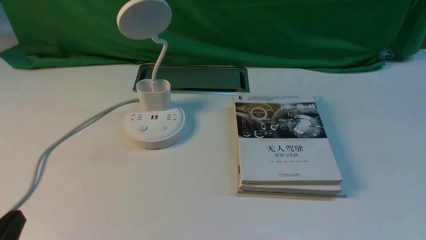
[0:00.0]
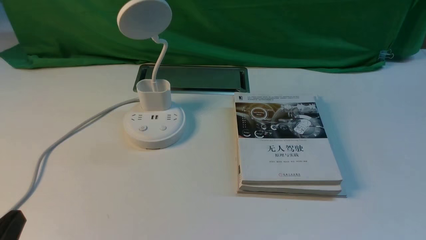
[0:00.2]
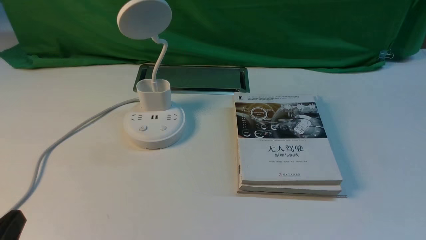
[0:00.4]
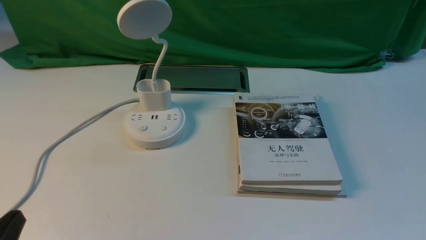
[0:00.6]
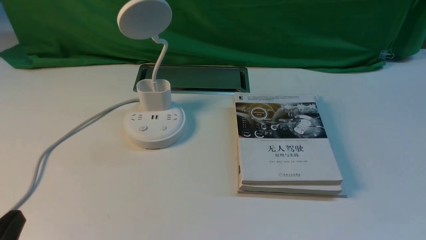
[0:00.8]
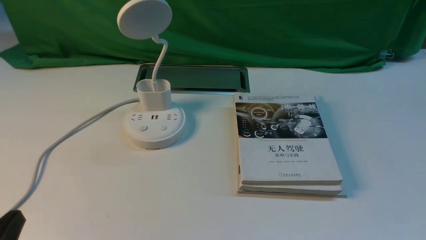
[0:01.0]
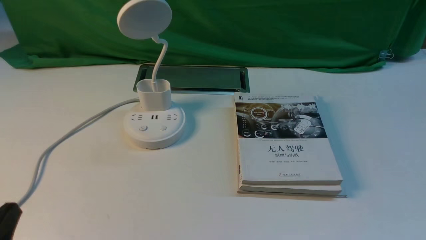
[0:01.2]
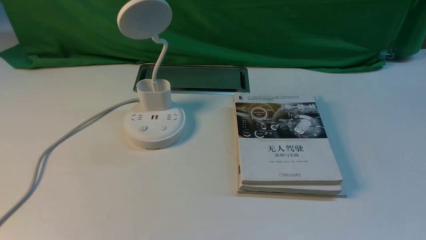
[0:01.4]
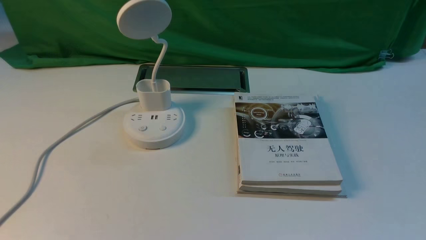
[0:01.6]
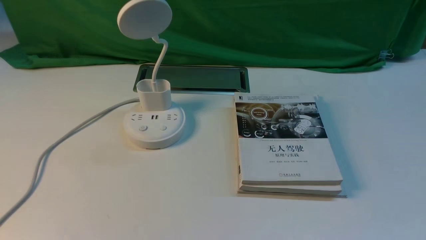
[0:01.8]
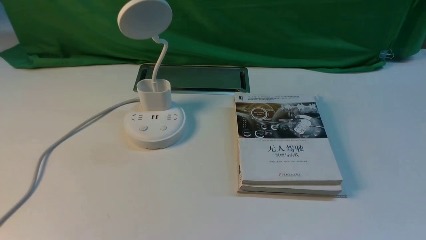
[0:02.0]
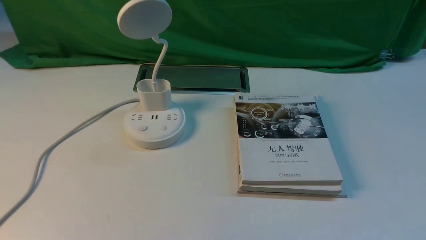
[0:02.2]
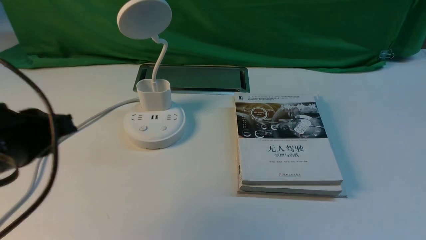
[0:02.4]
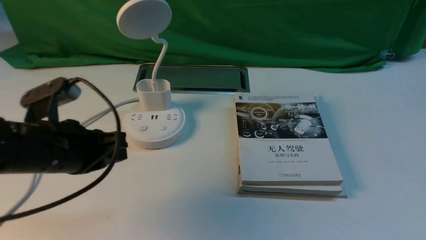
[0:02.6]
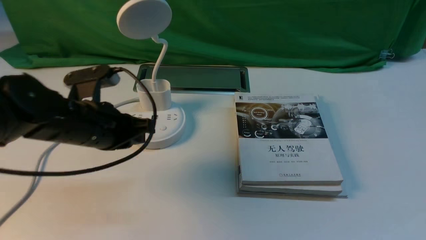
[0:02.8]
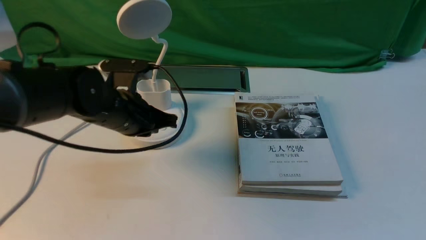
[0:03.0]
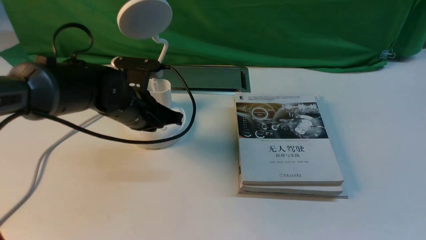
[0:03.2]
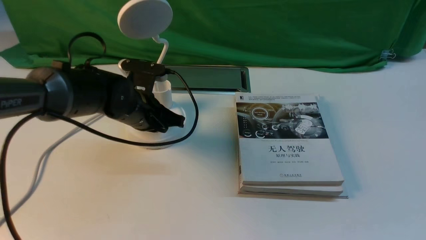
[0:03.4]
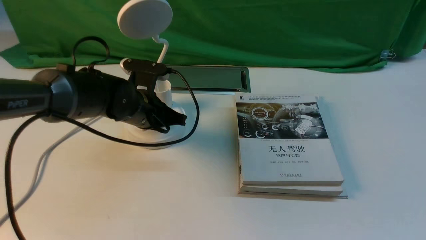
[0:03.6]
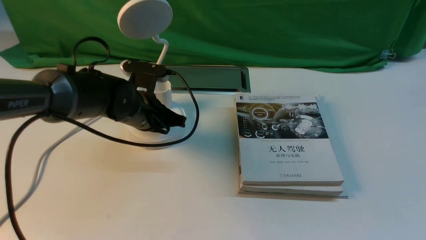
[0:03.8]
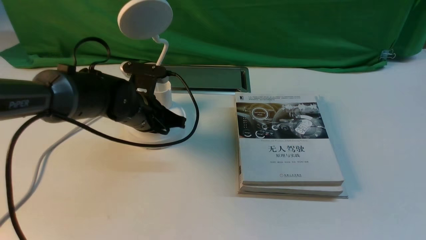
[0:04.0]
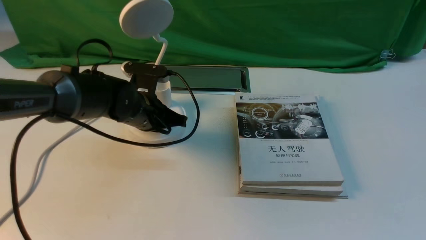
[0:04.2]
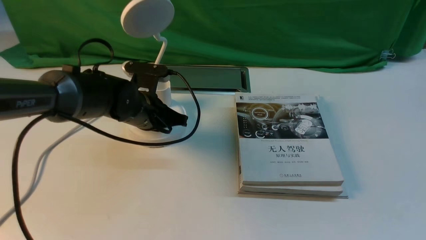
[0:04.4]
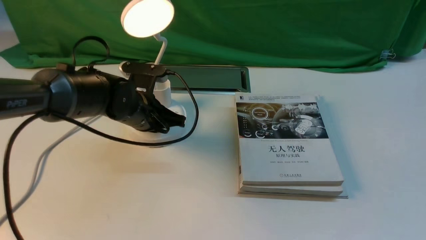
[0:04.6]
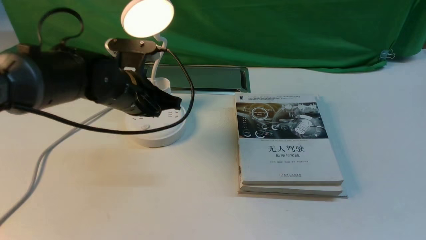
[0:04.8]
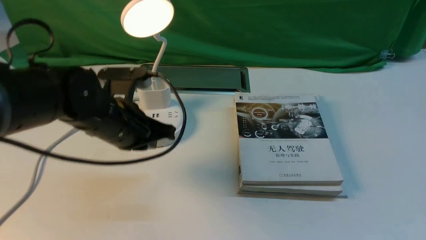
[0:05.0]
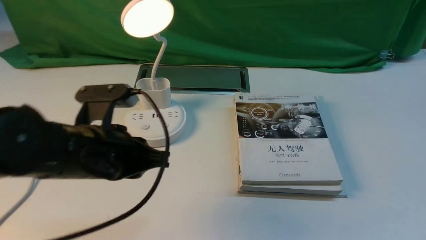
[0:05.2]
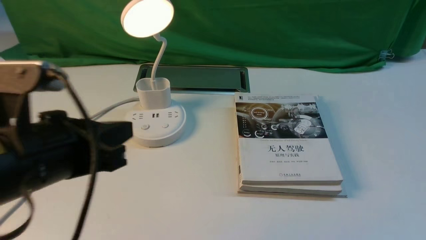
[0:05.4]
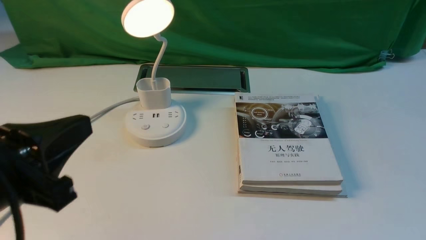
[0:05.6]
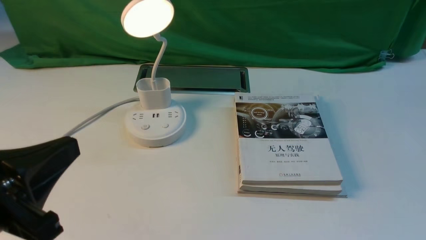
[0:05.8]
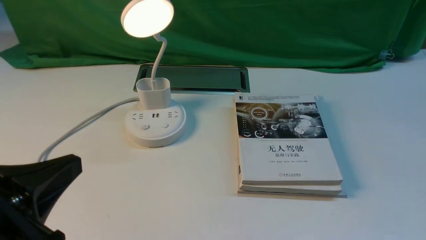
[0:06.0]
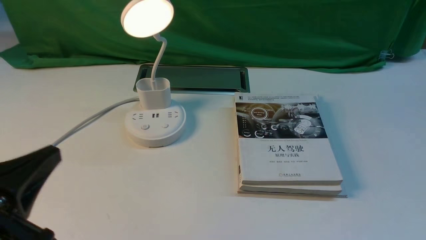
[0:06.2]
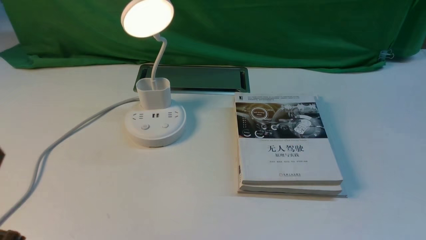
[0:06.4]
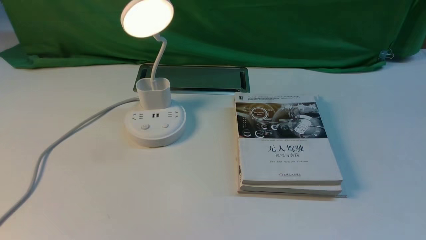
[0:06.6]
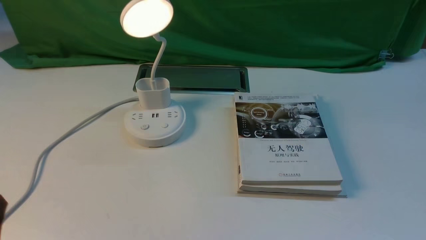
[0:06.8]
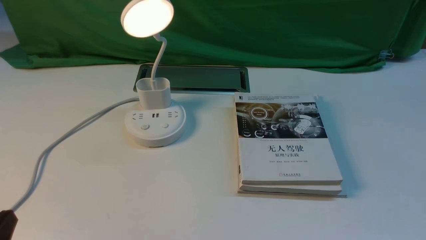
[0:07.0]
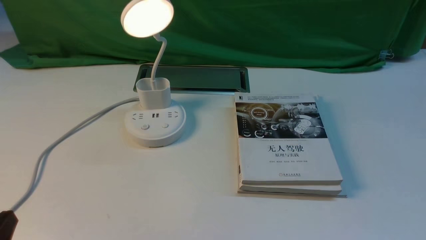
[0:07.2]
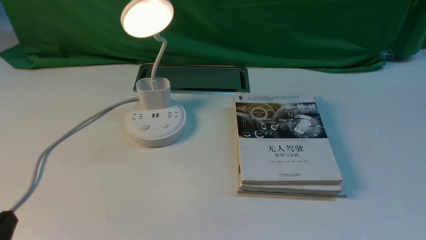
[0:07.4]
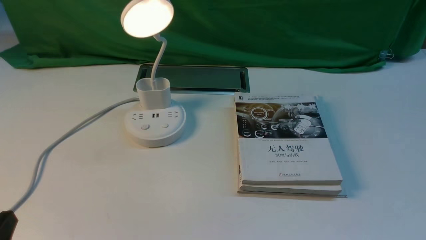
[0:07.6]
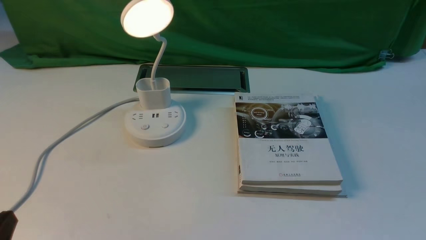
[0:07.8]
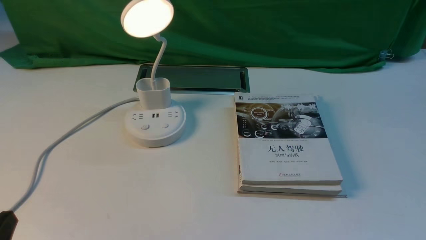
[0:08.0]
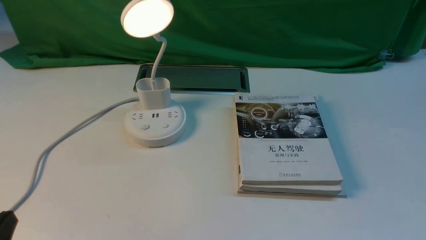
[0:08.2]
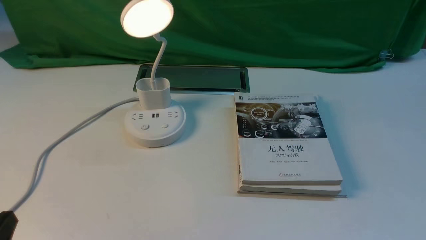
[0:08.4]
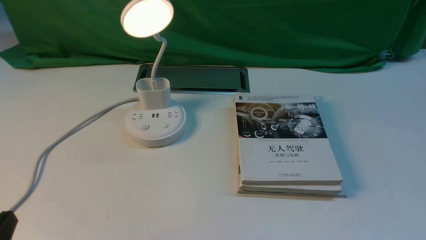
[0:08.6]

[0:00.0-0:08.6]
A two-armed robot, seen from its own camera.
Step, 0:00.0 to 0:04.6: use the left arm to press the button switch on the lamp holder.
0:01.4 to 0:02.8: The left gripper is displaced forward by approximately 25 cm.
0:02.8 to 0:04.4: The left gripper goes roughly 10 cm forward and downward.
0:04.4 to 0:05.8: The left gripper shifts some 30 cm backward and upward.
0:05.8 to 0:07.2: The left gripper is displaced downward and to the left by approximately 15 cm.
0:07.2 to 0:08.6: Neither gripper changes place.

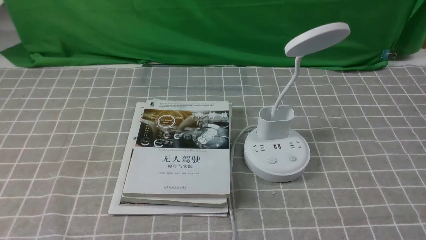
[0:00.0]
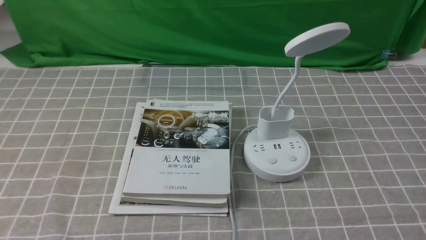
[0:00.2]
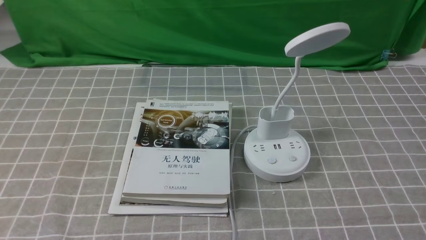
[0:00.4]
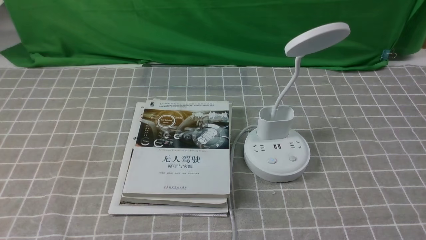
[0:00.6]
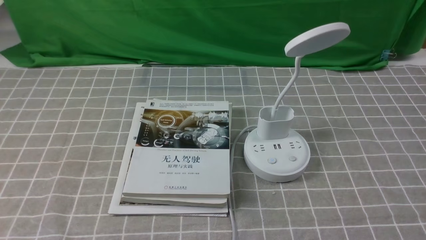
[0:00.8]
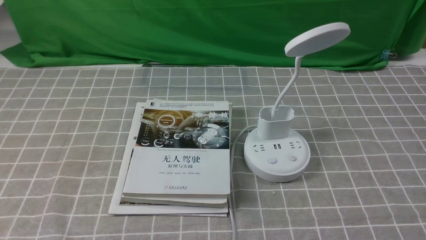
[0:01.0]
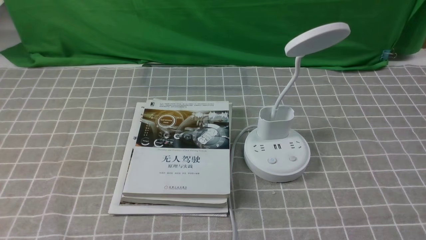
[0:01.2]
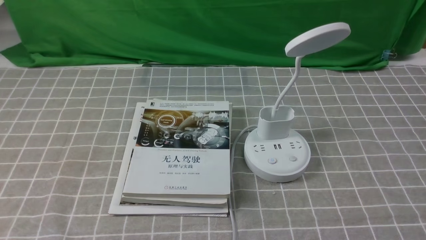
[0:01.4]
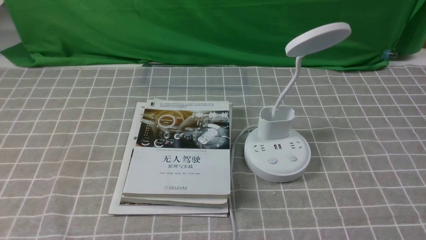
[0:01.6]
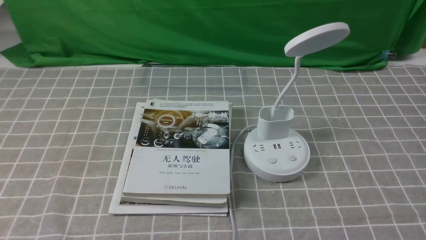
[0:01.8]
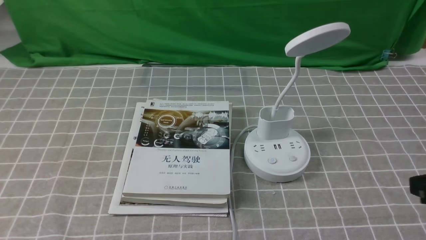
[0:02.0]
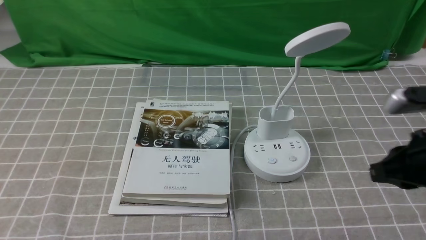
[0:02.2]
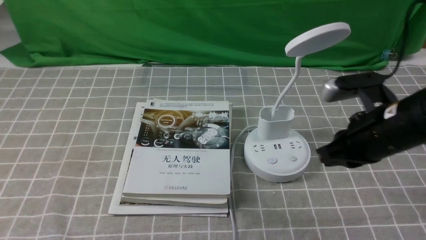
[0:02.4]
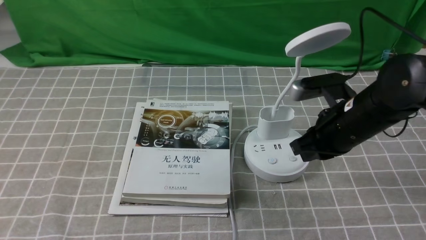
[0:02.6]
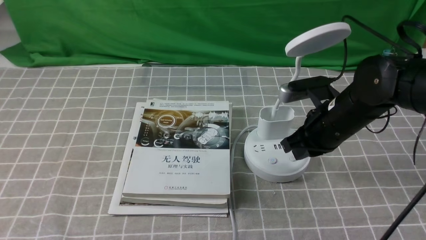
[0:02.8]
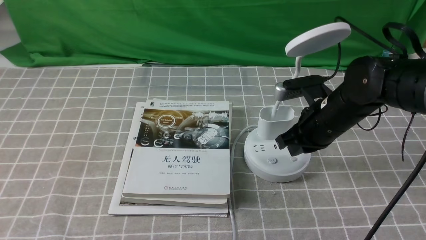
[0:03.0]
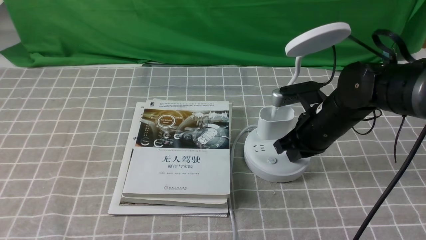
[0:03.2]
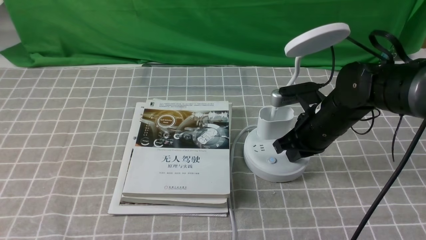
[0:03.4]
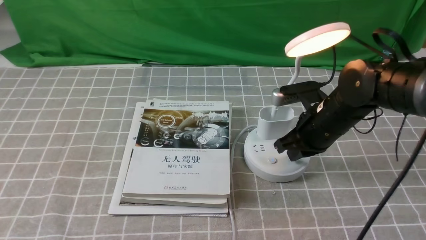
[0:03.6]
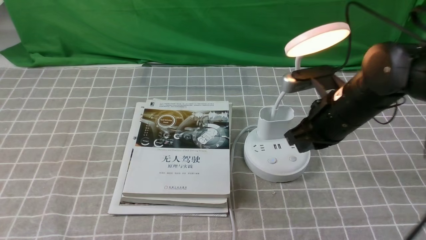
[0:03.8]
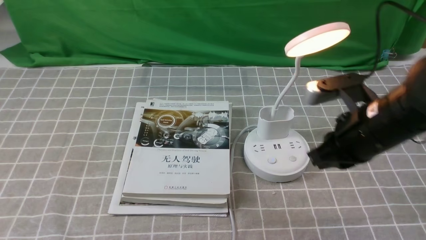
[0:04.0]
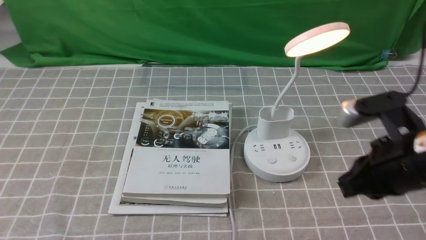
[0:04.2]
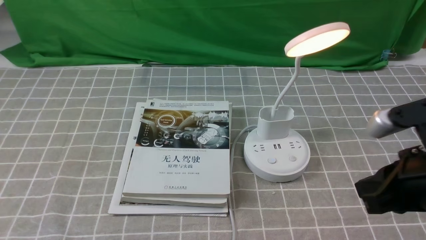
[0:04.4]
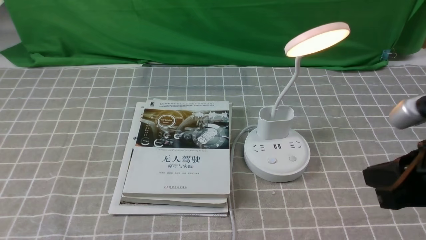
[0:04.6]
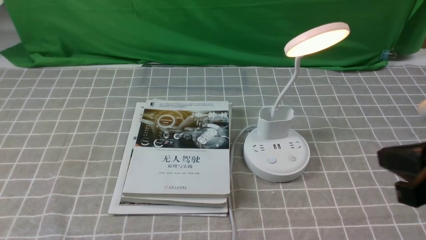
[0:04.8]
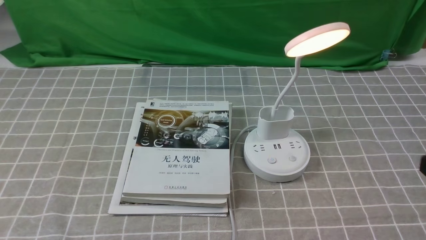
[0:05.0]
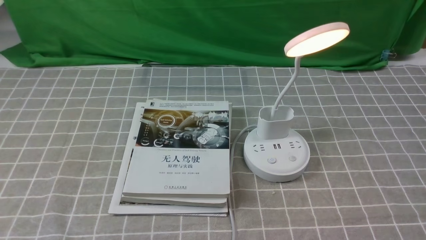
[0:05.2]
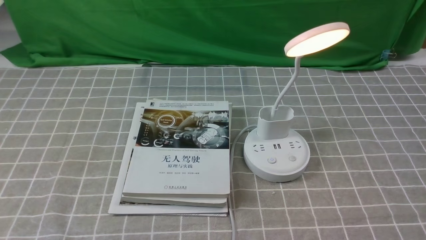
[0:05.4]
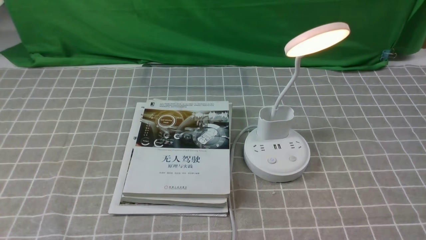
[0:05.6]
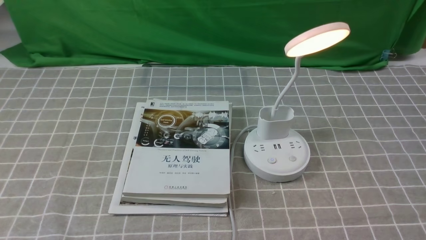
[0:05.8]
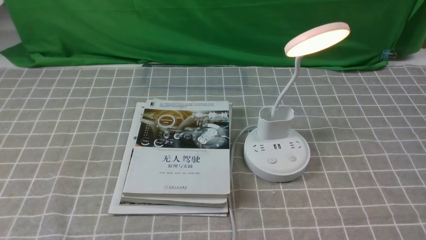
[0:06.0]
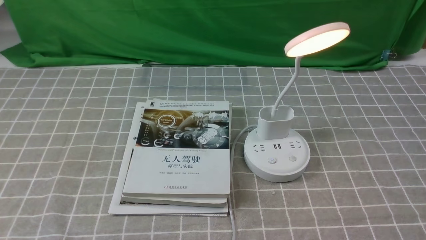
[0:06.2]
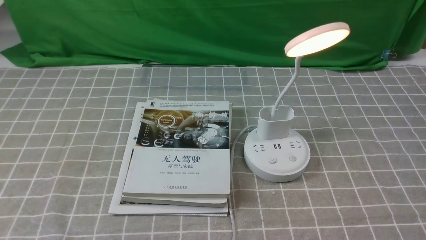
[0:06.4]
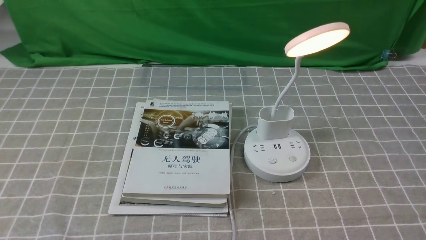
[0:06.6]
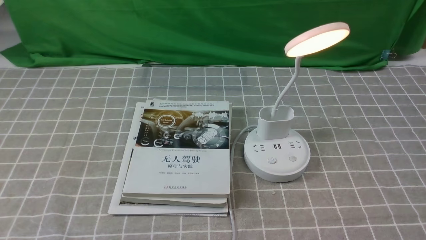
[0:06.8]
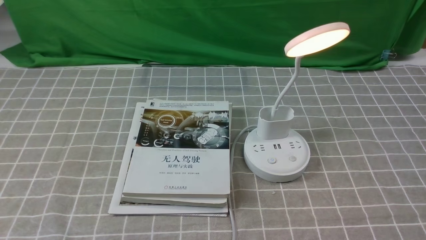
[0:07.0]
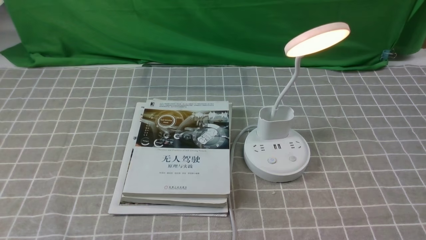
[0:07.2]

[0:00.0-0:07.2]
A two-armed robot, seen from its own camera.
Step, 0:00.0 to 0:03.8: use the right arm to press the button switch on the lamp holder.
0:01.4 to 0:02.8: The right gripper heads forward and to the left, covering approximately 30 cm, and closes up.
0:02.8 to 0:04.4: The right gripper travels backward, upward and to the right by roughly 20 cm.
0:04.4 to 0:05.8: The right gripper shifts about 20 cm backward, downward and to the right.
0:05.8 to 0:07.2: Both grippers stay about where they are.

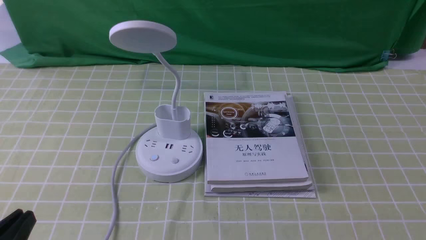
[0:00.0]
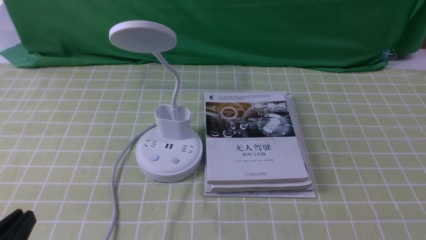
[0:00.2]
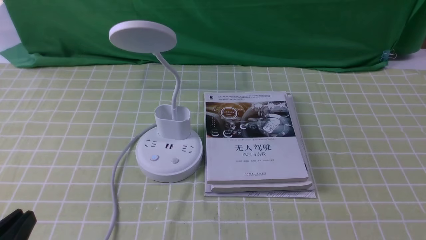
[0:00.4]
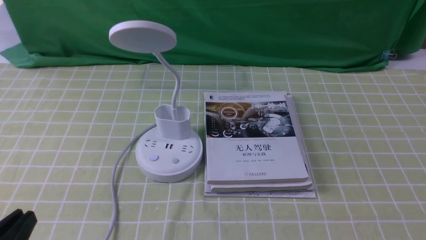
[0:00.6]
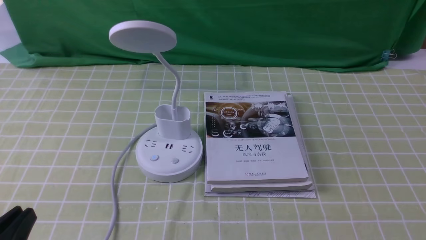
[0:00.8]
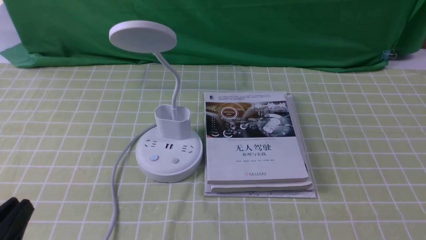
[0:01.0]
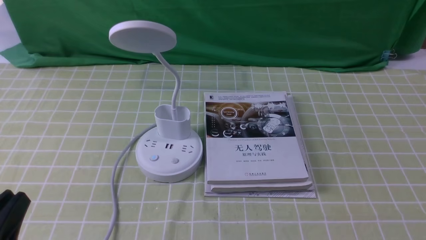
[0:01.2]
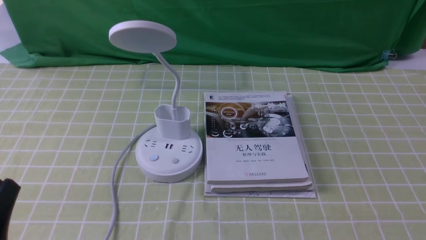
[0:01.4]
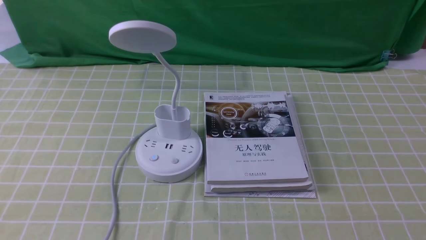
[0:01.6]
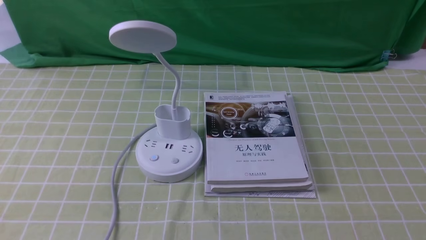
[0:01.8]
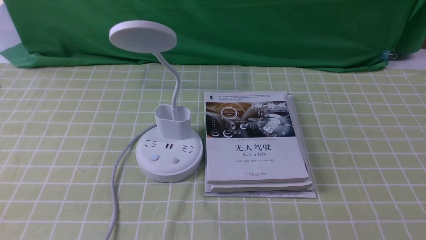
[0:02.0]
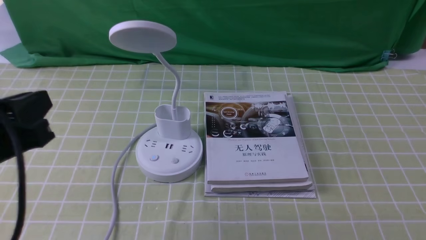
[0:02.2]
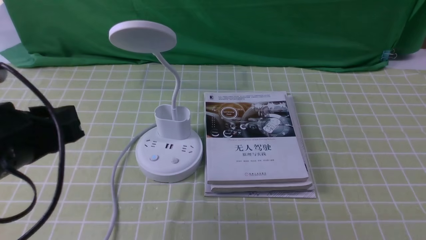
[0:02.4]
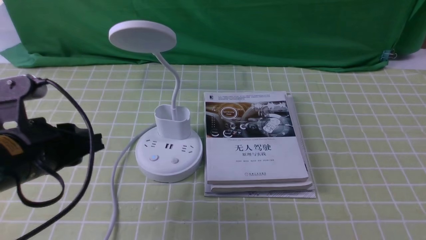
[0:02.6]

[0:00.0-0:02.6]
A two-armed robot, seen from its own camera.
0:00.0 to 0:01.2: The grippers stay close to where they were, moving slightly.
0:01.2 to 0:02.6: The left gripper is displaced forward by approximately 15 cm.
